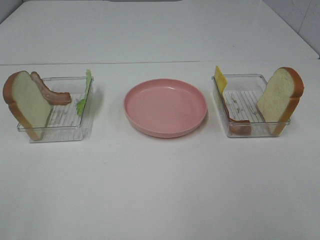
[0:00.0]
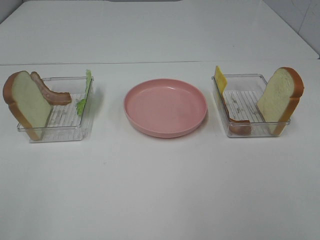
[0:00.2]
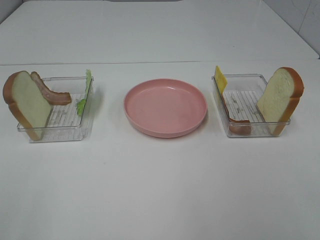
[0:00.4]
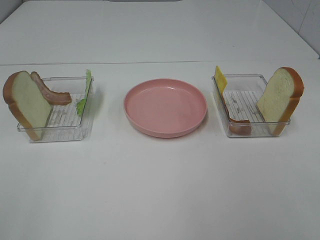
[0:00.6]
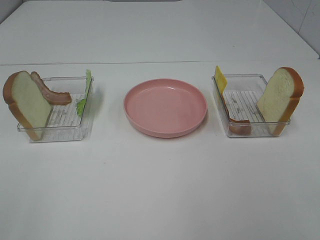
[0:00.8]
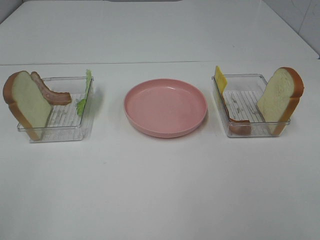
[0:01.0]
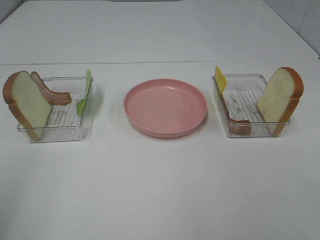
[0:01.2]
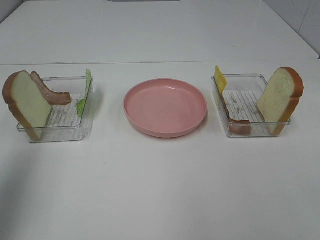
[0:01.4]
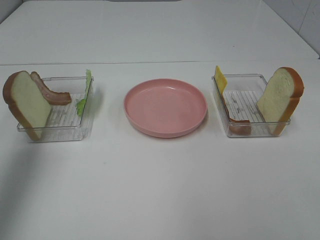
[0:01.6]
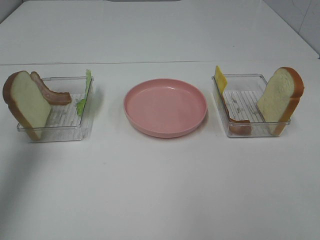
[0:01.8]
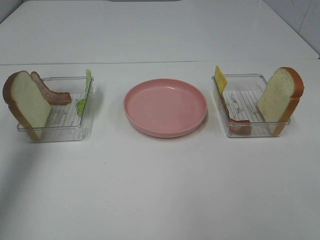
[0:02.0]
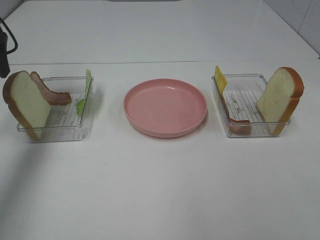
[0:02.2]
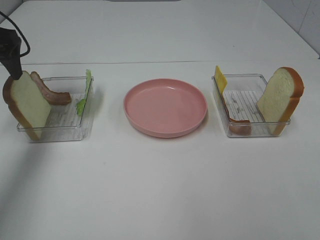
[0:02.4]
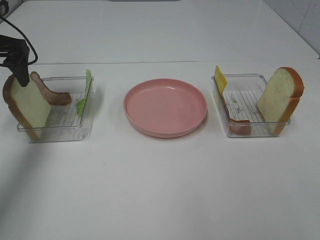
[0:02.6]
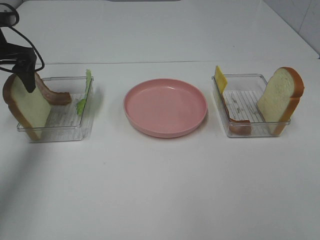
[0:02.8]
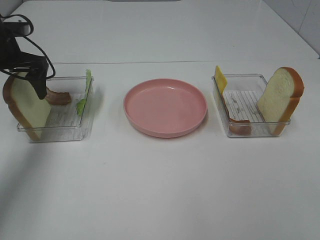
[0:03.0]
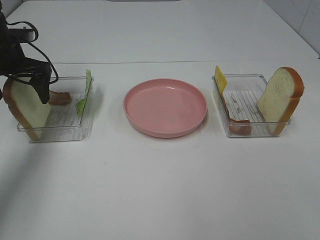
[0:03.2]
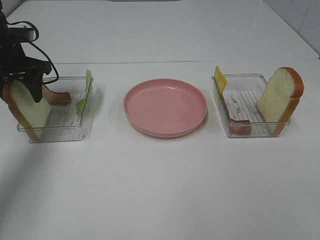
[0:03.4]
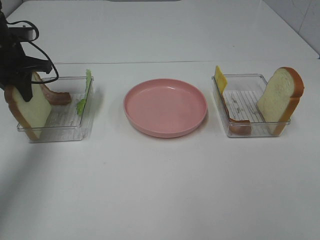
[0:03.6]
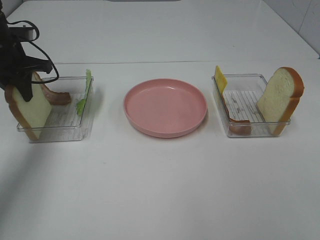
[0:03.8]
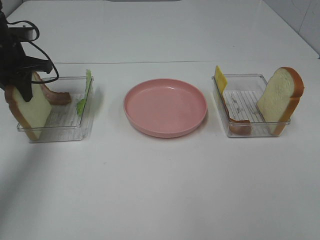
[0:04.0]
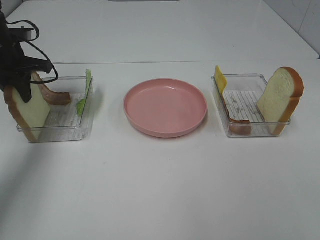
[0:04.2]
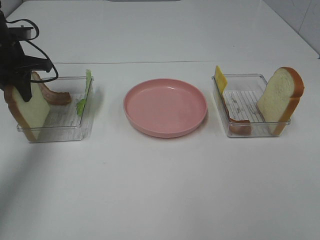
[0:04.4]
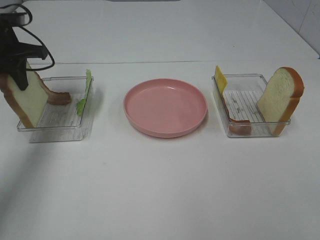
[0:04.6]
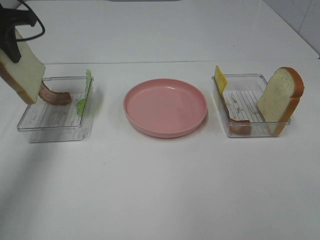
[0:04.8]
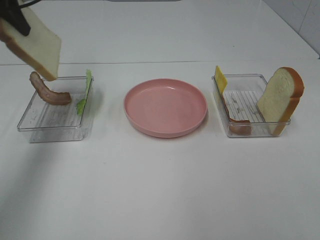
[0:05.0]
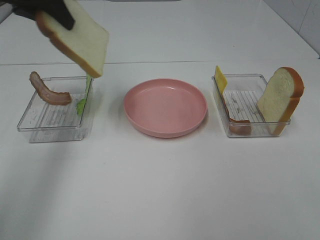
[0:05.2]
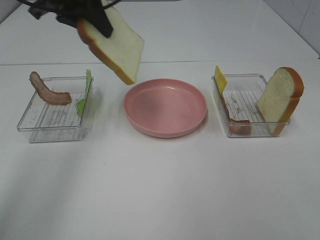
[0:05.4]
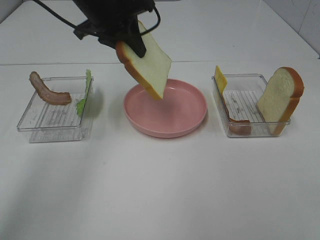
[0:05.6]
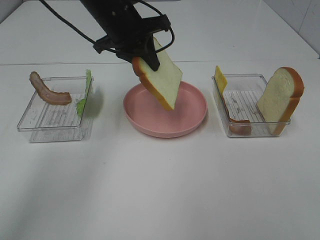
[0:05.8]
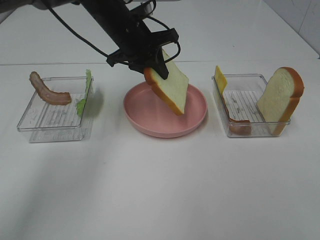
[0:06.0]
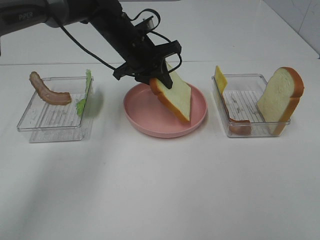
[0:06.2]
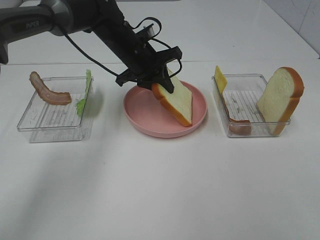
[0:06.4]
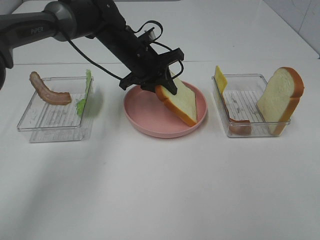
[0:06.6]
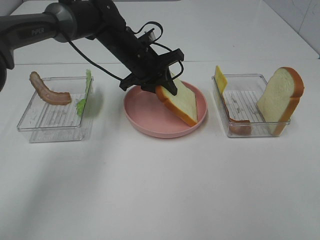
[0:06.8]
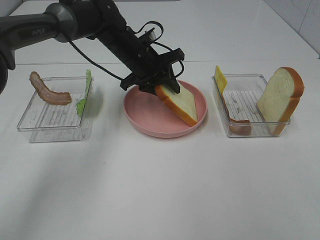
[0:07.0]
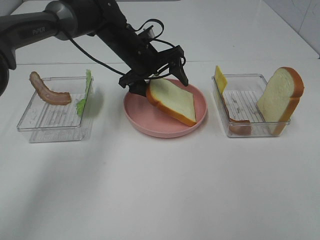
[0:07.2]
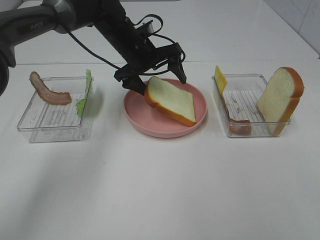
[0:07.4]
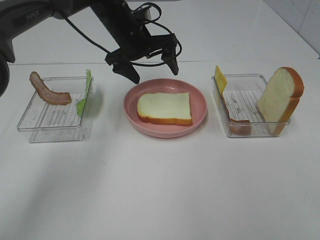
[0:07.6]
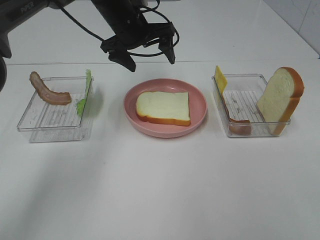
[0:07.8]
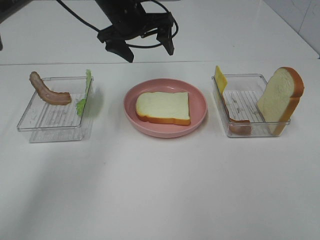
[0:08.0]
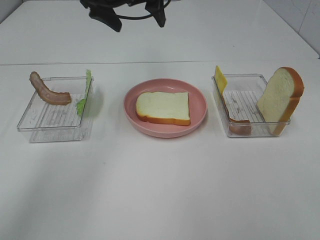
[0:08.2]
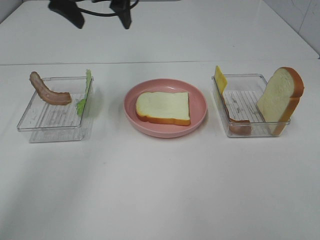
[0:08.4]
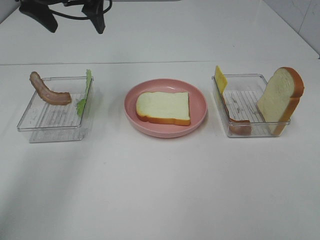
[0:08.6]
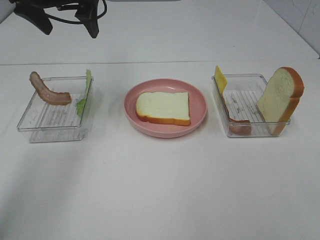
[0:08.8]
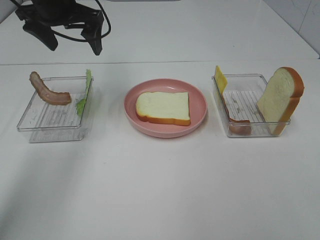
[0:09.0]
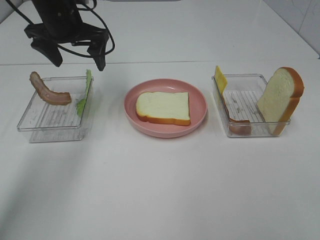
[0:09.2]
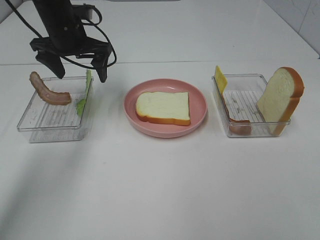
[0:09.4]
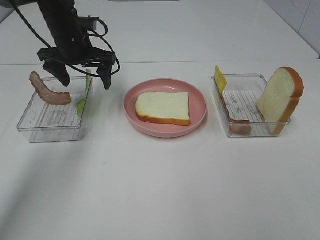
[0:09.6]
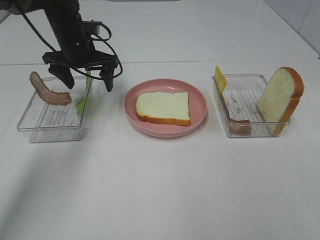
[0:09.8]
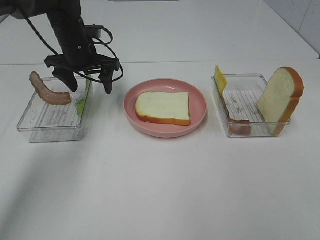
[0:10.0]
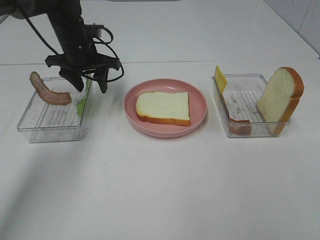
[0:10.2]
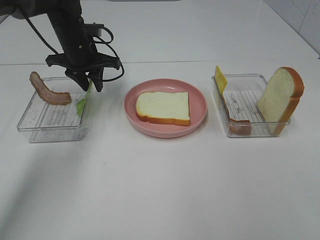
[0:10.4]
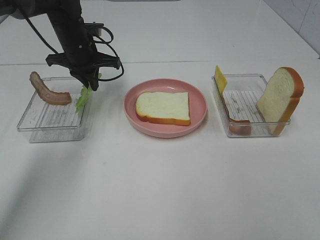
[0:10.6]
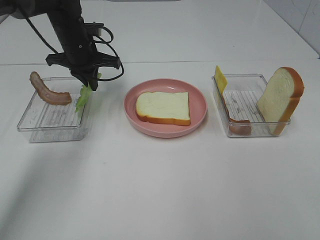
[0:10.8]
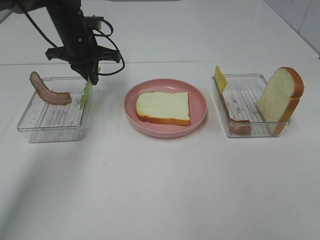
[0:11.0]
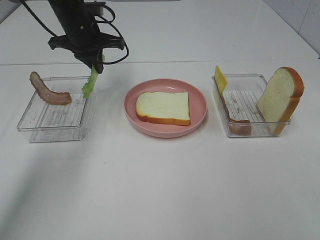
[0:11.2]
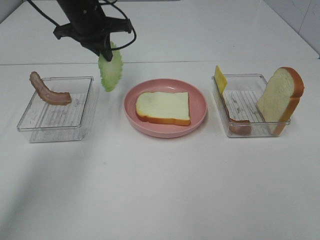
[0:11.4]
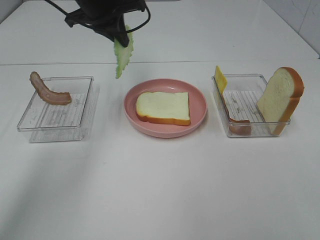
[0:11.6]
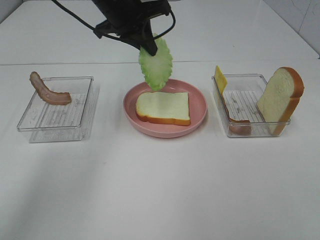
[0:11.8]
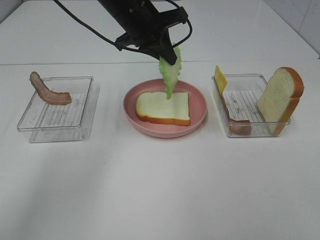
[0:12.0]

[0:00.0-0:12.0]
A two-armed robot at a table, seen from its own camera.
Task of the whole recording: Make sandwiches.
Step, 0:00.0 to 0:04.4: Left hand:grab the bread slice.
Step, 0:04.6 to 0:07.8: Left hand:place the bread slice on the plate.
Step, 0:08.0 to 0:10.8: Left hand:grab the lettuce slice.
0:00.0 to 0:01.6: The left gripper travels forward by approximately 30 cm.
0:01.6 to 0:03.0: The left gripper travels forward and downward by about 25 cm.
0:03.0 to 0:04.4: The left gripper closes up.
0:04.4 to 0:06.0: The left gripper shifts some 25 cm to the right.
0:06.0 to 0:07.6: The left gripper opens up.
0:07.6 to 0:09.0: The left gripper goes approximately 15 cm to the left and upward.
0:09.0 to 0:10.4: The left gripper shifts roughly 10 cm downward, and closes its fingers.
0:10.4 to 0:12.0: The left gripper goes about 15 cm to the right and upward.

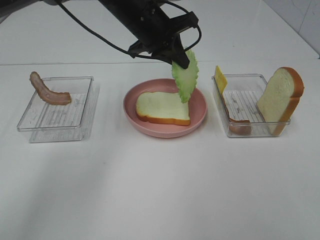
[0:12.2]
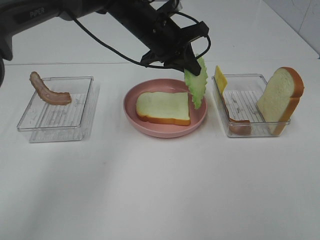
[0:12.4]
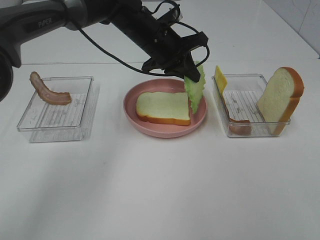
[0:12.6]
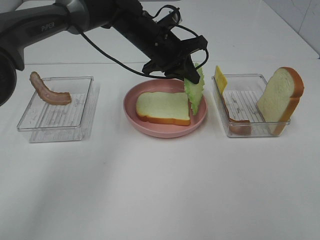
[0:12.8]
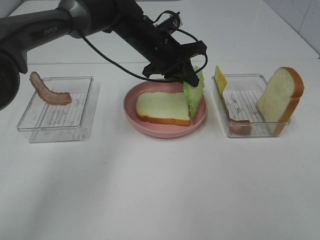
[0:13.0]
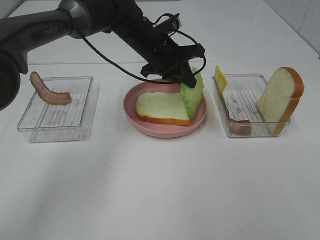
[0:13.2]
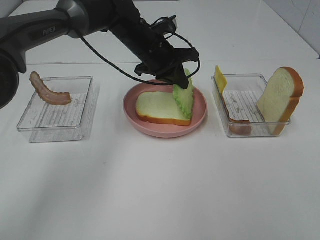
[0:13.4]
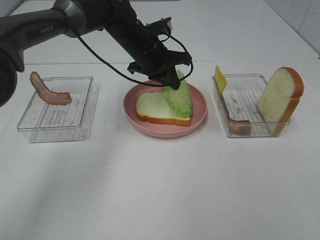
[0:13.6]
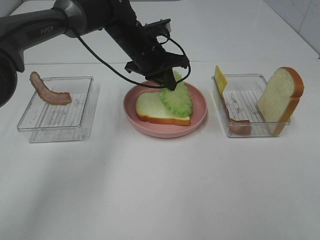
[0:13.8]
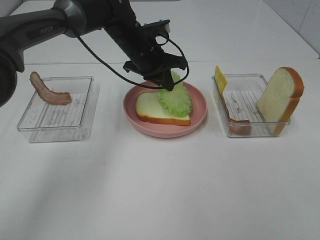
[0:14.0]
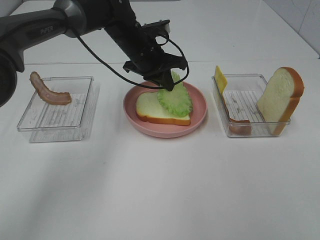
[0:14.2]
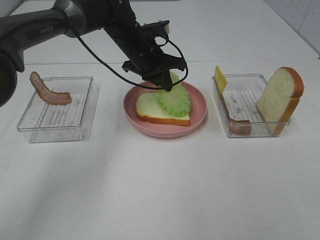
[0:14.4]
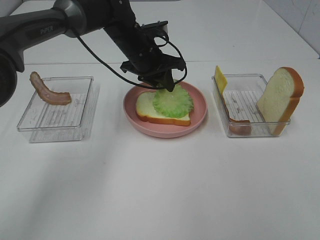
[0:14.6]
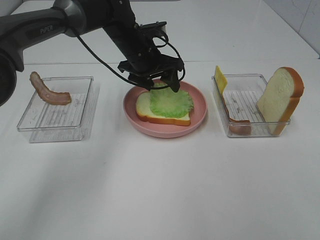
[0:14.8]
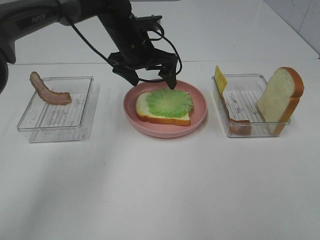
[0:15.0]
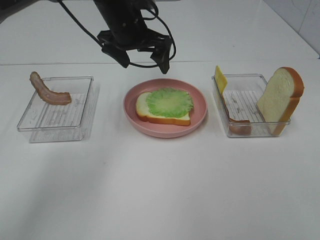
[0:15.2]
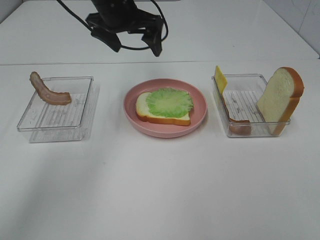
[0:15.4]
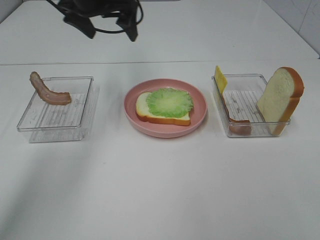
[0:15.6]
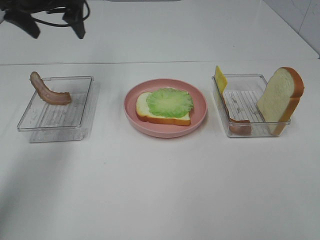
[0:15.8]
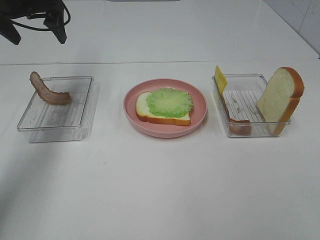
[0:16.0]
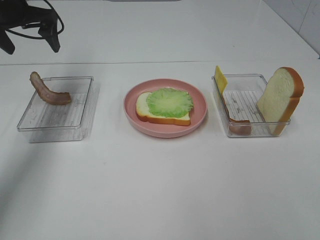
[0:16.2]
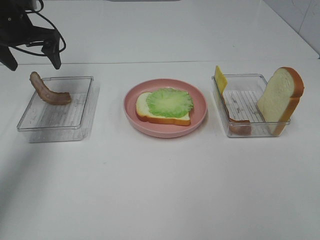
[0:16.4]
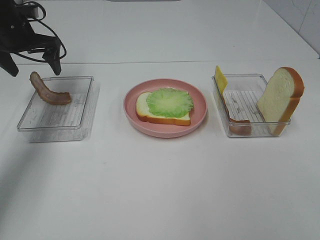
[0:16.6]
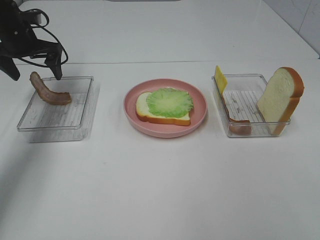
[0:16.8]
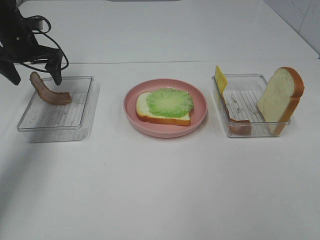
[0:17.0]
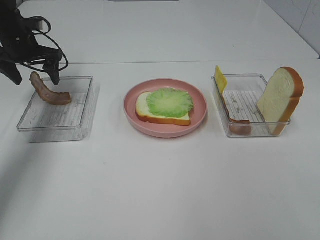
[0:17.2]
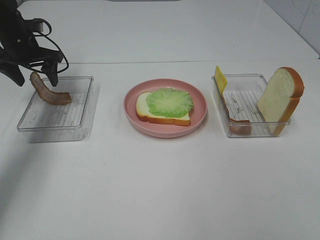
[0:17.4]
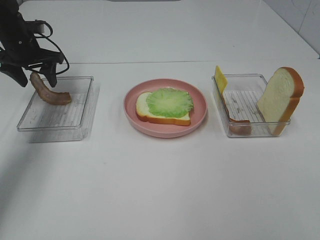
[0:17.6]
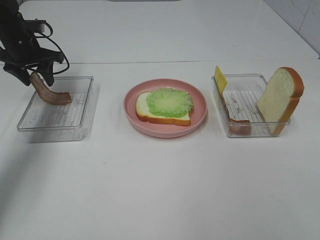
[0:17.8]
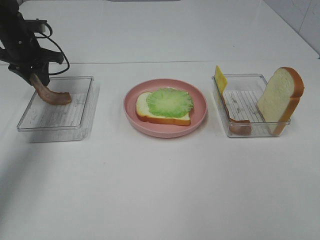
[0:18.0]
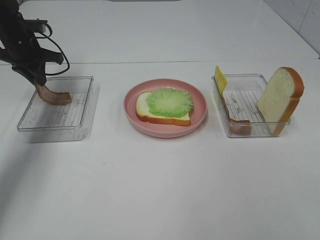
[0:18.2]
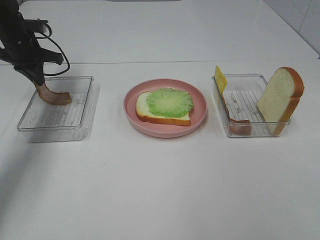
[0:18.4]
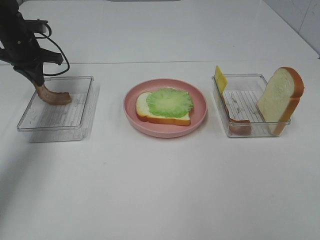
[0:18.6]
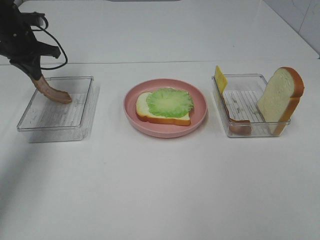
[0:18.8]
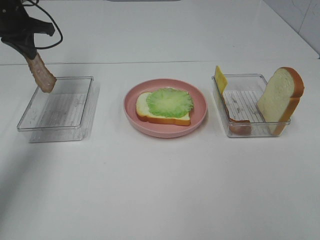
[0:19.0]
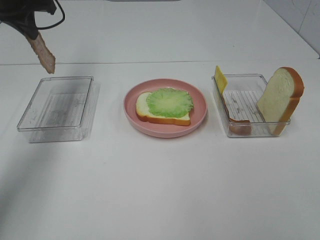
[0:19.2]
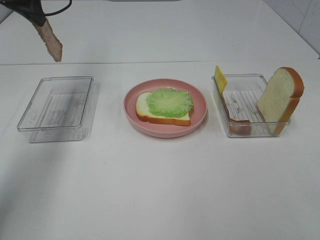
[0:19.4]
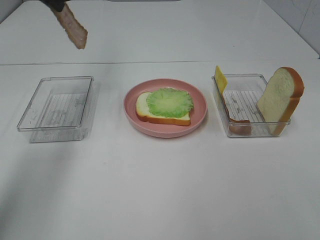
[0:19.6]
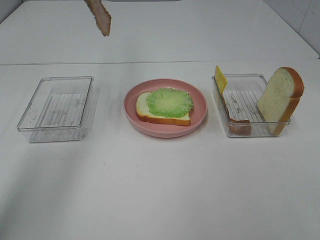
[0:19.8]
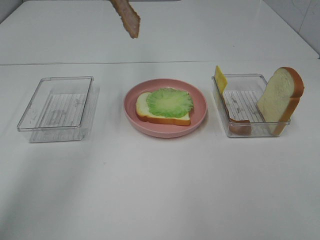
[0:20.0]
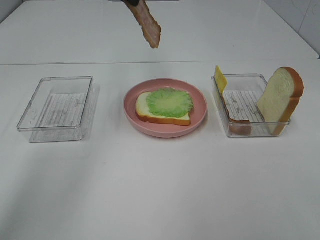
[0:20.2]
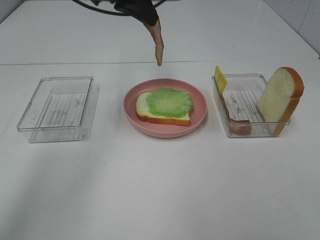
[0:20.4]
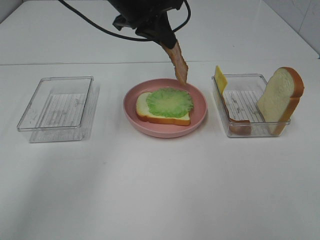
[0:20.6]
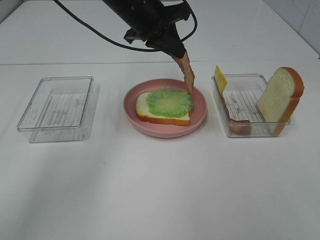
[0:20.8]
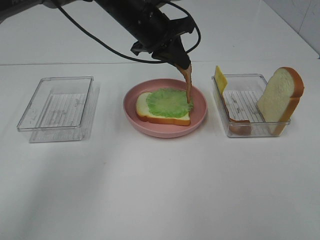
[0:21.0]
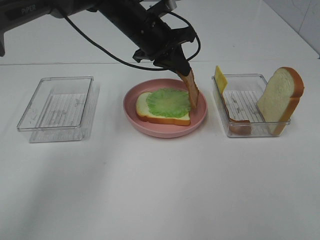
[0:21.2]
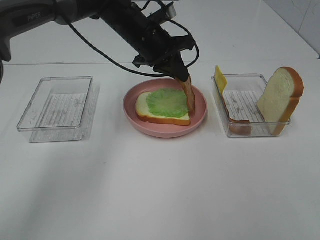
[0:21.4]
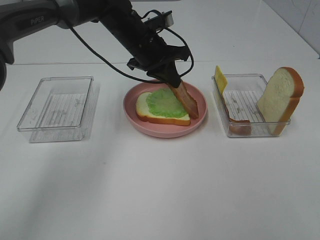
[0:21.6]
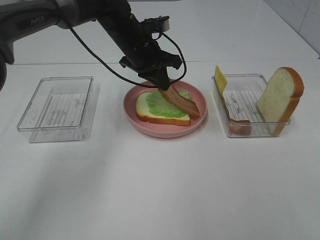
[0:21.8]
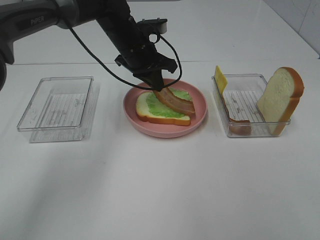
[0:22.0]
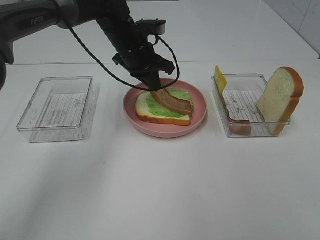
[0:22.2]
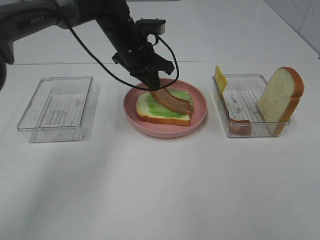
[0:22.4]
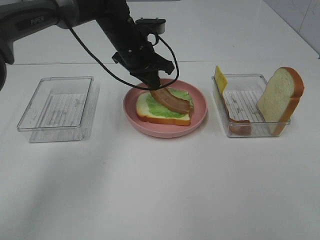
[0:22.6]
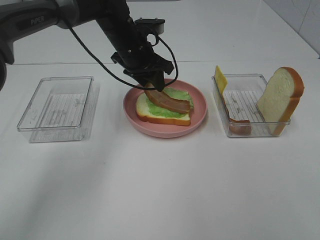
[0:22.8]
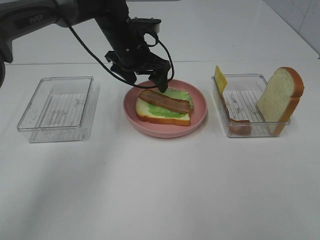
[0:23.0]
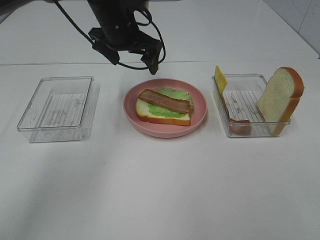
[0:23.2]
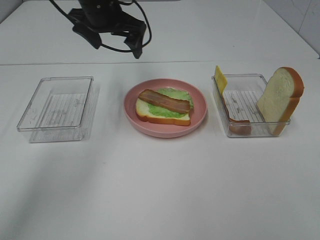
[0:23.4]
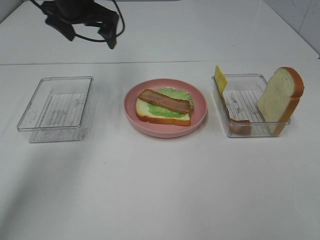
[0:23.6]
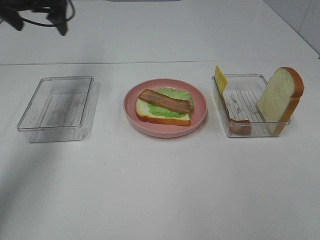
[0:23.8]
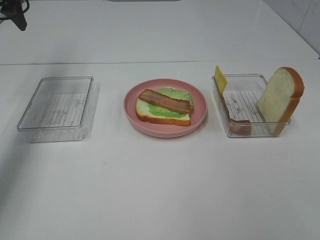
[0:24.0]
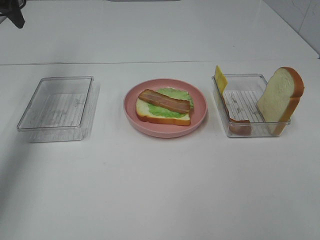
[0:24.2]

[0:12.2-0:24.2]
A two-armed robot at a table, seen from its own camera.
Task of the whole recording: Make sandwiches.
Step, 0:12.2 to 0:14.8: Left hand:place the lettuce slice on the bread slice.
Step, 0:15.0 to 0:18.6: Left hand:grab the bacon.
Step, 0:18.8 to 0:23.0: Left hand:place bacon on lettuce slice.
0:12.2 to 0:13.8: The left gripper is displaced downward by roughly 5 cm.
0:13.8 to 0:15.2: The left gripper is displaced upward by about 5 cm, and opens.
0:15.2 to 0:16.6: The left gripper heads to the left, covering approximately 25 cm.
0:16.6 to 0:18.2: The left gripper closes its fingers.
0:18.2 to 0:19.8: The left gripper goes approximately 25 cm upward and to the right.
0:19.8 to 0:21.2: The left gripper heads downward and to the right, covering approximately 20 cm.
0:22.6 to 0:24.2: The left gripper is displaced to the left and upward by roughly 30 cm, and opens its fingers.
